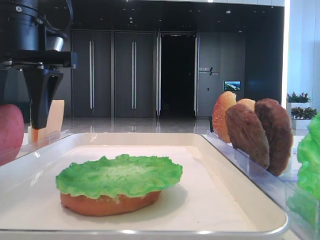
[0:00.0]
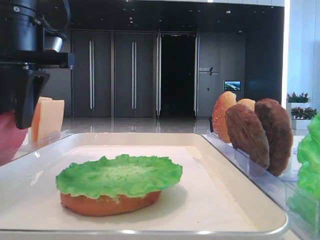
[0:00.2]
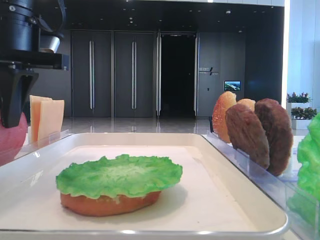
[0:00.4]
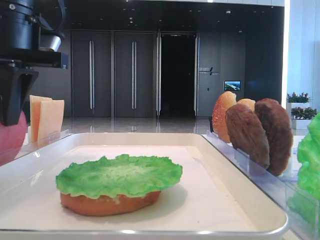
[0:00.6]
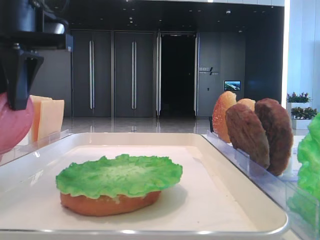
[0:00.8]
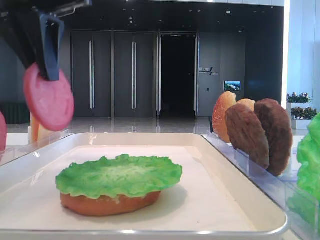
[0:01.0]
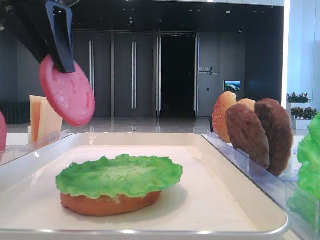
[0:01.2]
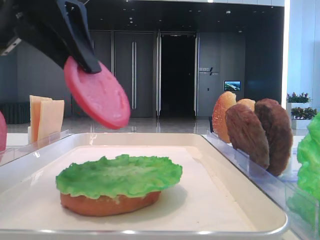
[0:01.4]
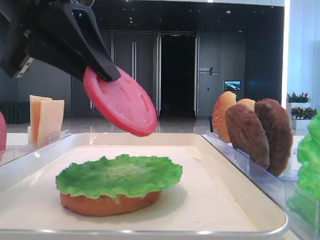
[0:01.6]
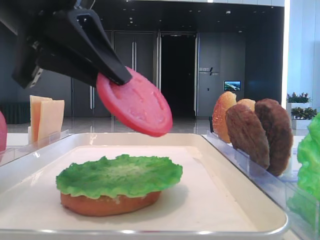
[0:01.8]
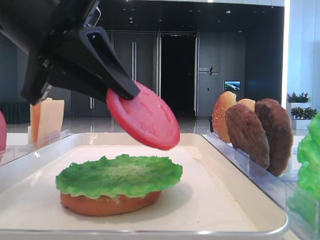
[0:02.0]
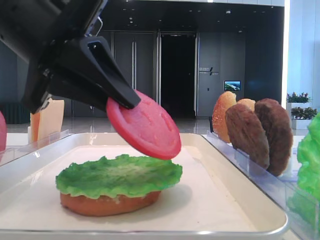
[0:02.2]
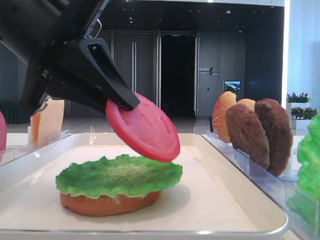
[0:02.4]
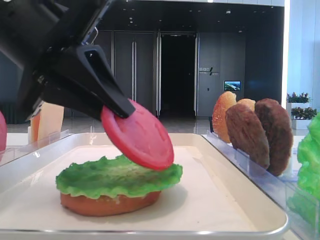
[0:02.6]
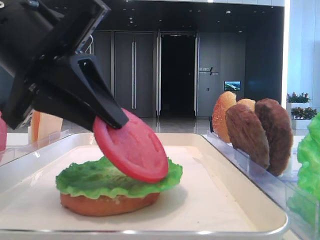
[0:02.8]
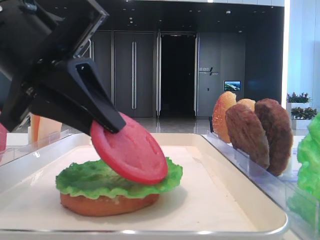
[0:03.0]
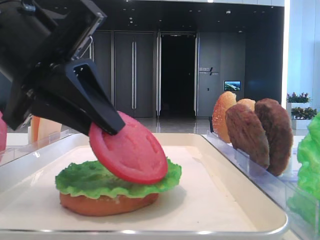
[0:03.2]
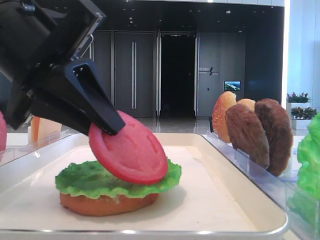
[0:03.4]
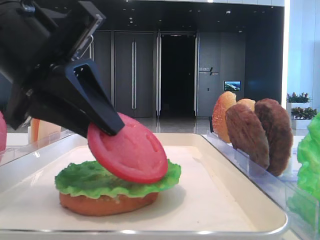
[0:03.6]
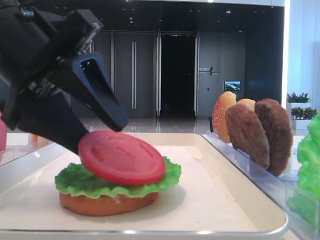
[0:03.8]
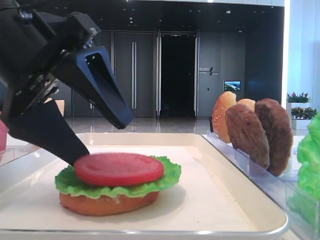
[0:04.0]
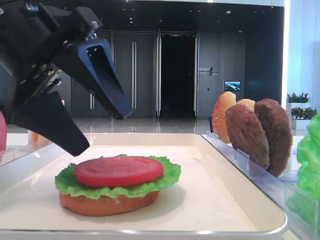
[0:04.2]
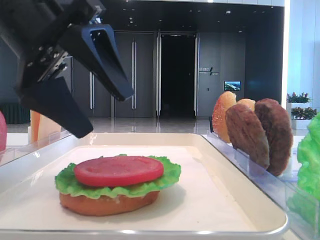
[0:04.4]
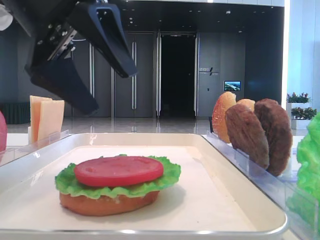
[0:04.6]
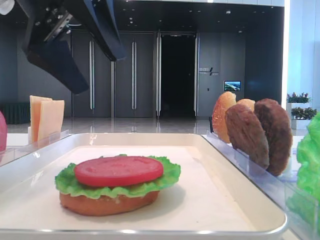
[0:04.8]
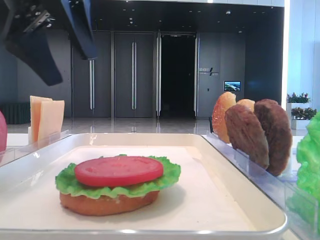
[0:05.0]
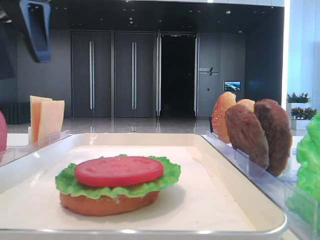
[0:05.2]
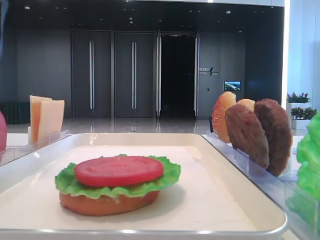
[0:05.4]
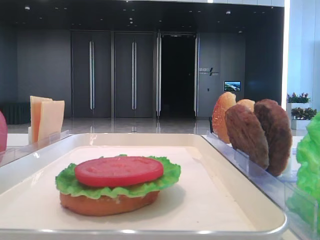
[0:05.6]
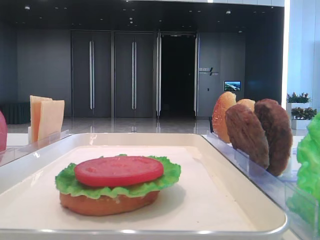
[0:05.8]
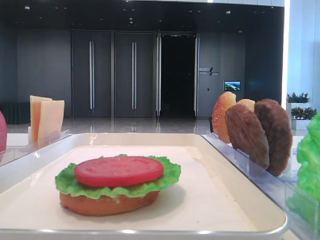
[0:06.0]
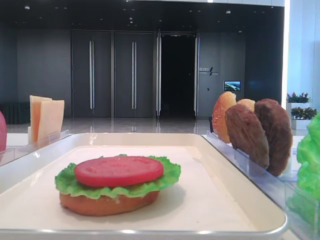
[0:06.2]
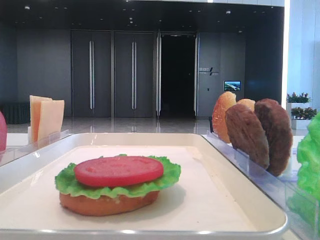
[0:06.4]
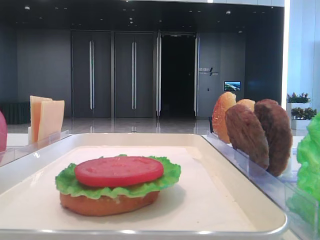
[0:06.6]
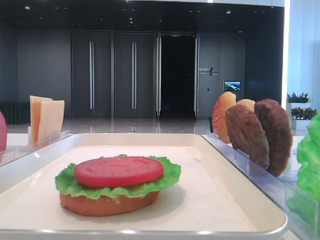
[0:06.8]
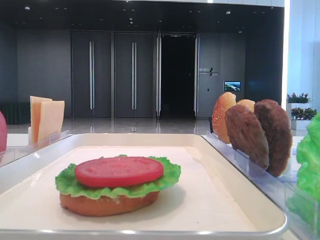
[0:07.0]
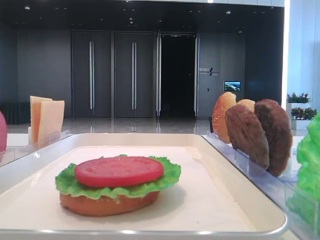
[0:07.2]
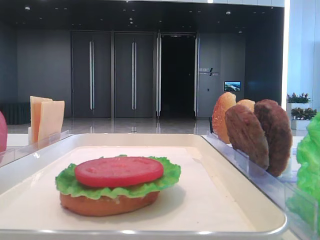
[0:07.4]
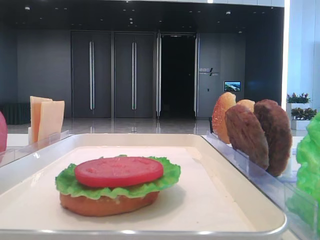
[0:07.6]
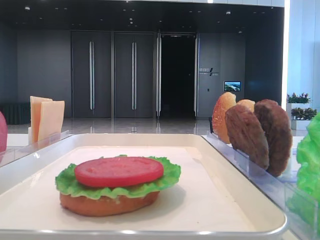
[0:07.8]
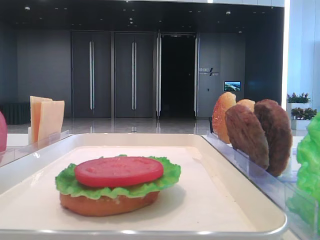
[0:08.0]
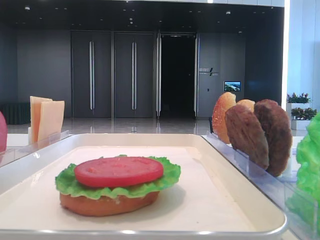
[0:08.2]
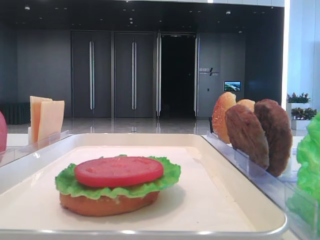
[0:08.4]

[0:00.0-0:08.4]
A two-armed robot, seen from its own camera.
Step, 0:00.6 to 0:04.0: Place the tomato slice on the lettuce leaf with the left hand.
0:00.0 to 0:01.4: The left gripper shifts by roughly 5 cm, and closes.
0:01.4 to 0:02.8: The left gripper heads downward, covering about 10 cm.
0:02.8 to 0:04.2: The left gripper opens its fingers.
0:04.2 to 0:05.6: The left gripper shifts about 20 cm to the left and upward.

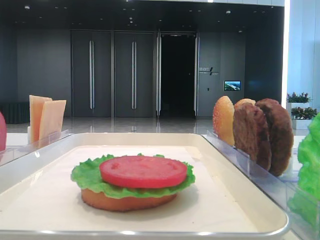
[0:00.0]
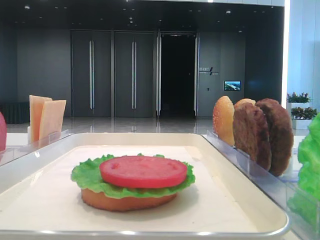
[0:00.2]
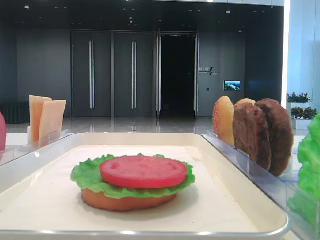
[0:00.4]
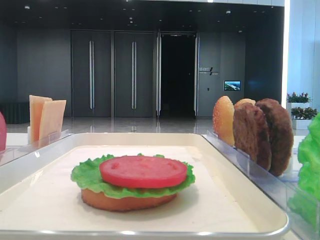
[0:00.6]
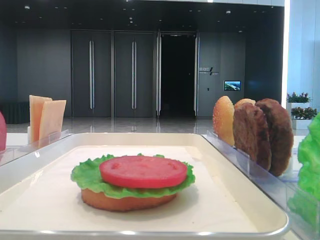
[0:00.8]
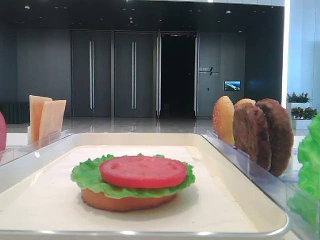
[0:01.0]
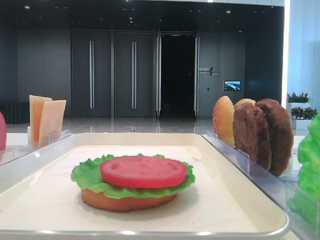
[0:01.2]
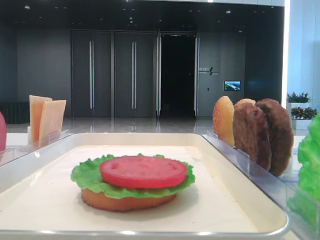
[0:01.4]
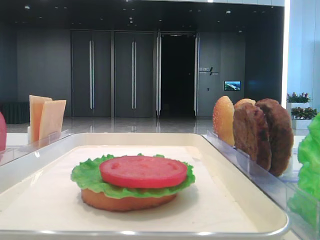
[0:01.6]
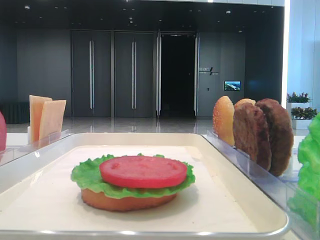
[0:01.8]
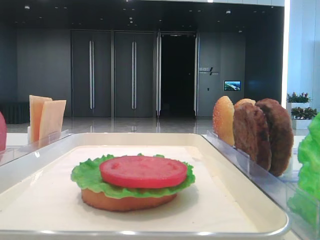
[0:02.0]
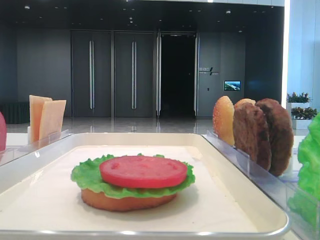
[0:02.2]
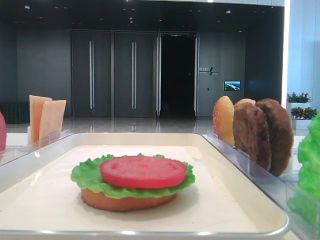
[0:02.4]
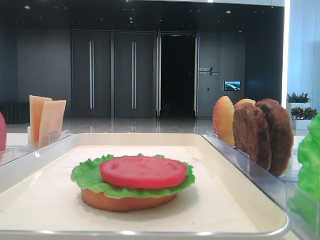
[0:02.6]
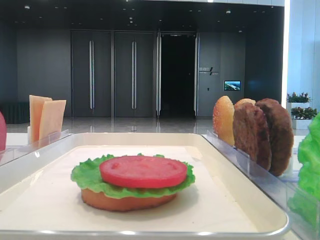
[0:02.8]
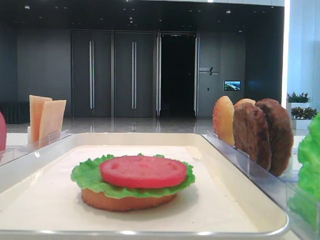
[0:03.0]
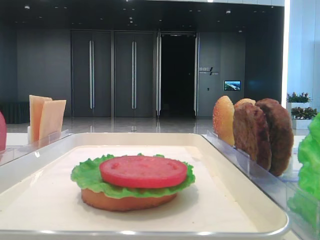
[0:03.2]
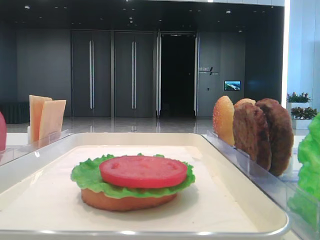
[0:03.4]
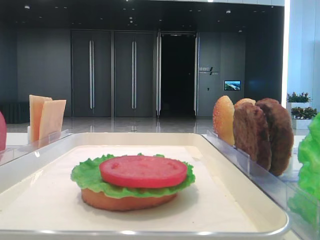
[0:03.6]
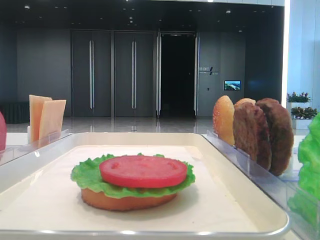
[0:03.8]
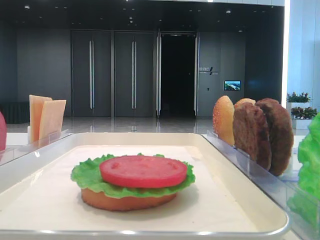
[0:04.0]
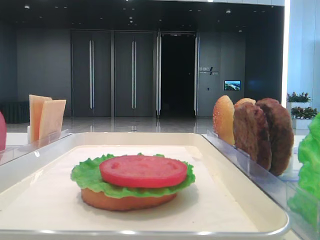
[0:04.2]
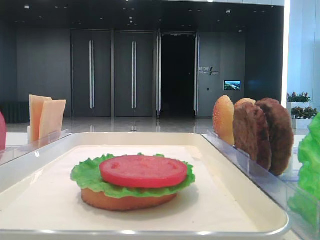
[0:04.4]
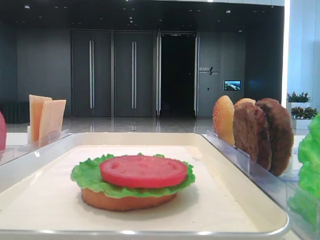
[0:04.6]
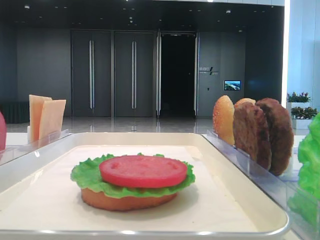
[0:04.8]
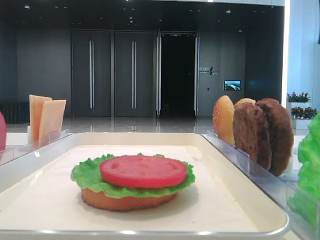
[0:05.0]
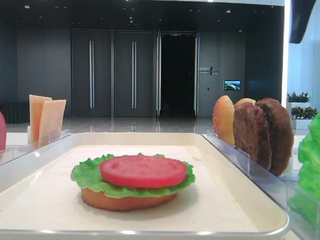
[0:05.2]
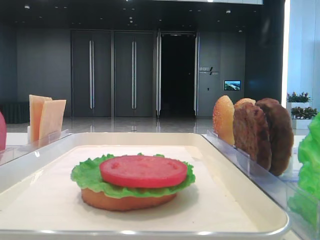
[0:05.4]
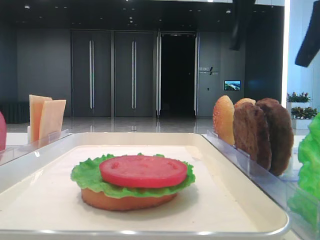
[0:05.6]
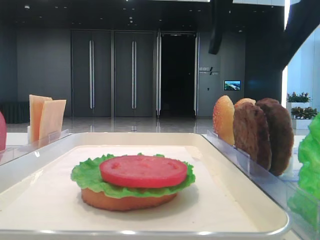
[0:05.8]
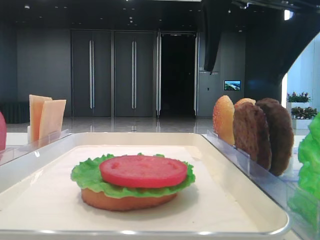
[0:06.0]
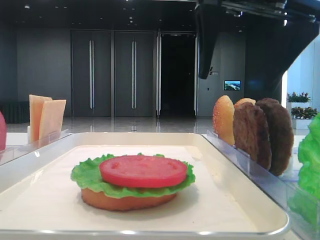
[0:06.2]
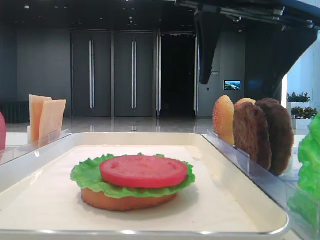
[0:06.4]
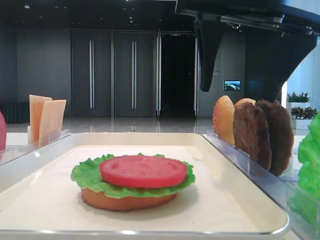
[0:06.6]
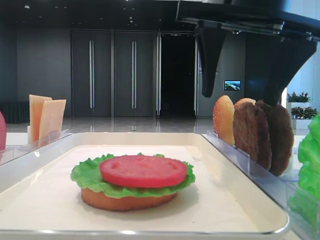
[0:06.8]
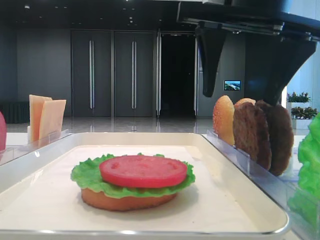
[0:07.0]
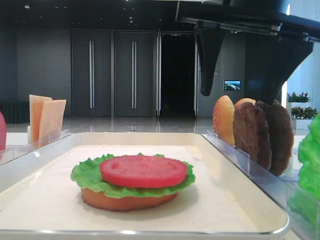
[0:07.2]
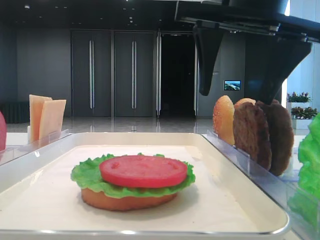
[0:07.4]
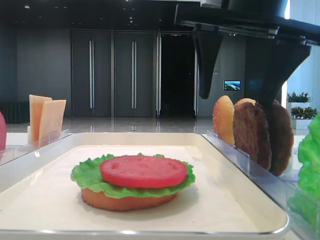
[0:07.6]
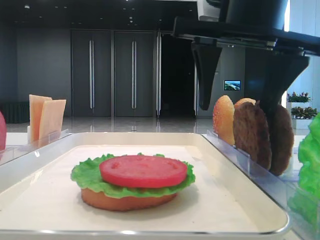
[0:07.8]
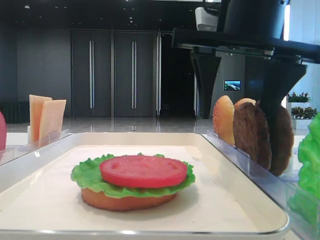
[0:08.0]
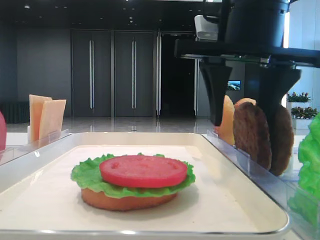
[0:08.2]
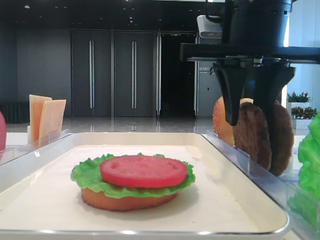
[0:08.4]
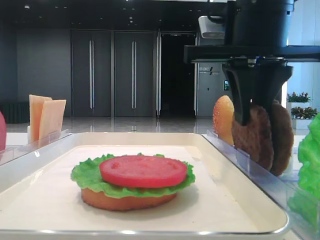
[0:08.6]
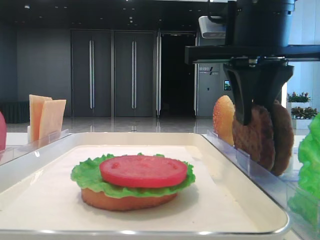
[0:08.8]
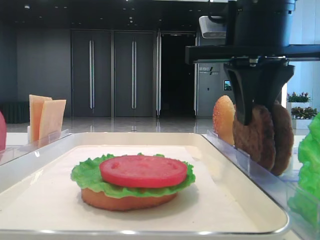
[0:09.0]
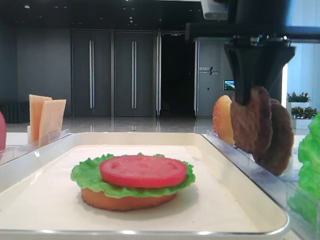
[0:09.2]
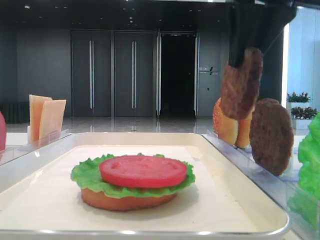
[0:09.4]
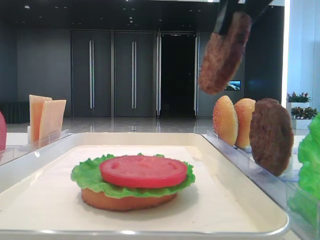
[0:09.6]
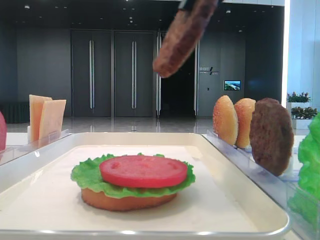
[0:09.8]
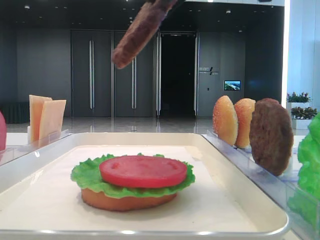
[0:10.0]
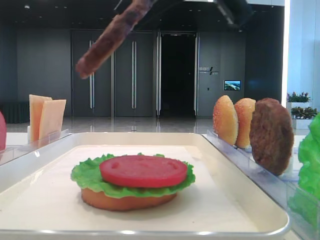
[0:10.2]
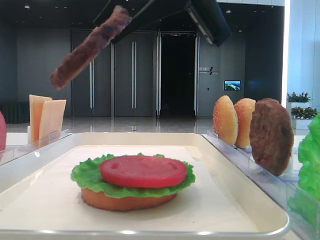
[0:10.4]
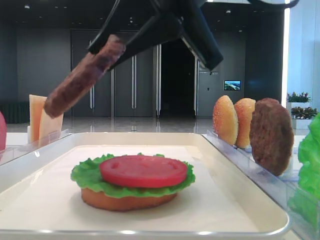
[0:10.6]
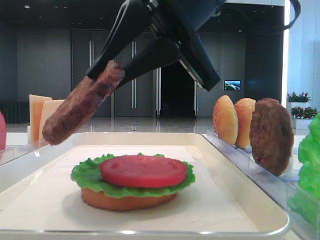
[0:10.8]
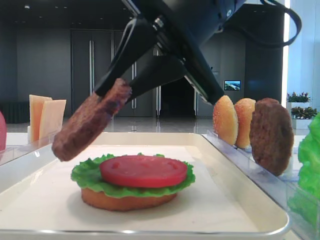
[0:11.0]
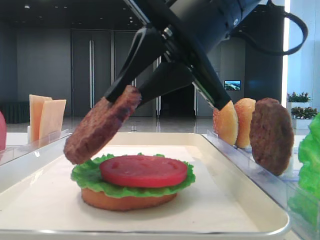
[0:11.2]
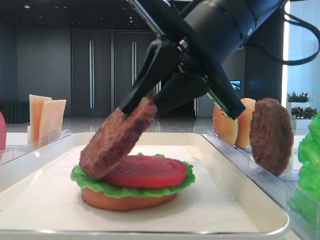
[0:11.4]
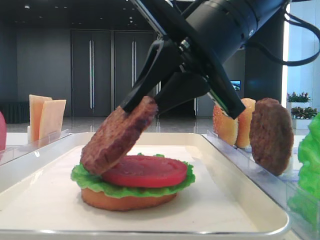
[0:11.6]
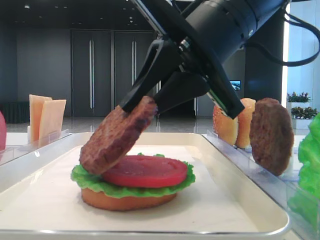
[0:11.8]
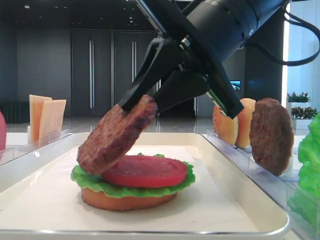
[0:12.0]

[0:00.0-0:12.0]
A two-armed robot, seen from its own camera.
Step, 0:00.0 to 0:08.8: Grab the patty with the right hand.
0:04.4 to 0:06.0: The right gripper goes some 15 cm to the left.
0:06.0 to 0:07.6: There are only small adjustments of the grippers.
0:07.6 to 0:09.0: The right gripper closes up.
0:09.0 to 0:10.4: The right gripper is displaced to the left and upward by approximately 10 cm.
0:10.4 to 0:12.0: The right gripper shifts roughly 5 cm downward.

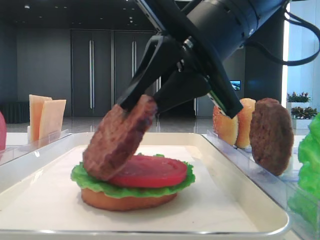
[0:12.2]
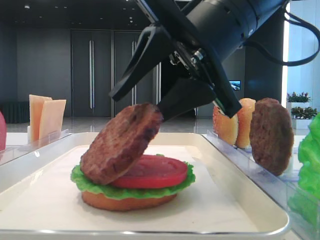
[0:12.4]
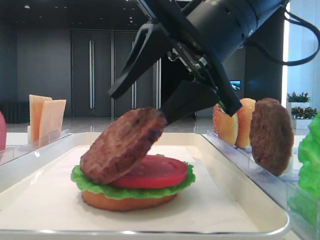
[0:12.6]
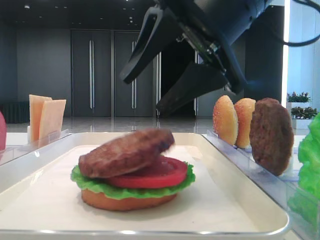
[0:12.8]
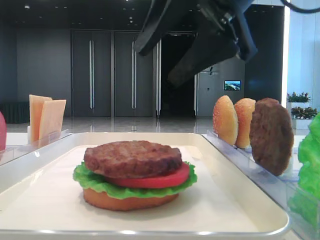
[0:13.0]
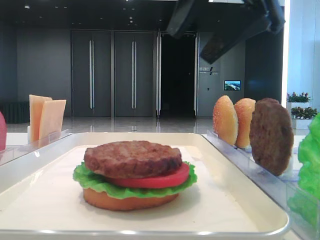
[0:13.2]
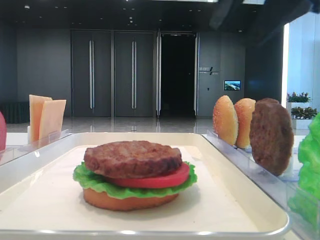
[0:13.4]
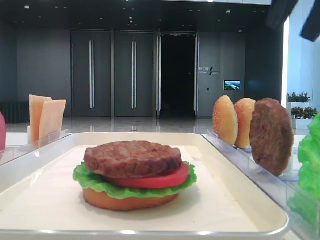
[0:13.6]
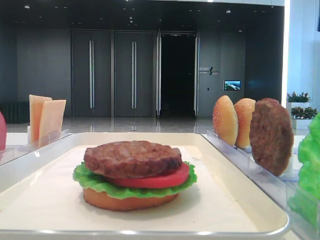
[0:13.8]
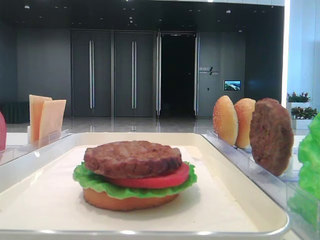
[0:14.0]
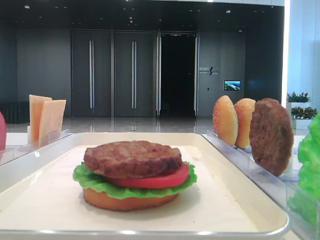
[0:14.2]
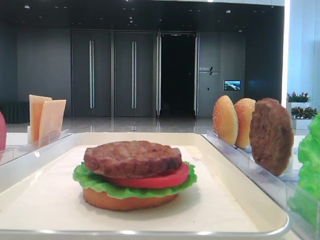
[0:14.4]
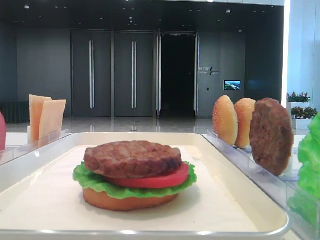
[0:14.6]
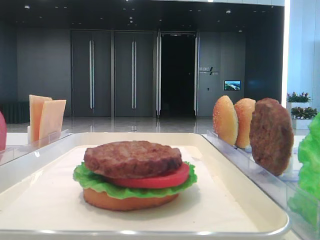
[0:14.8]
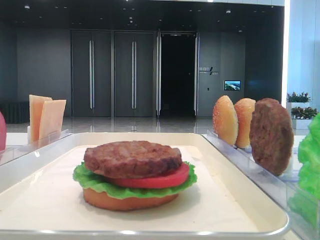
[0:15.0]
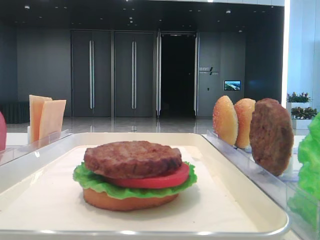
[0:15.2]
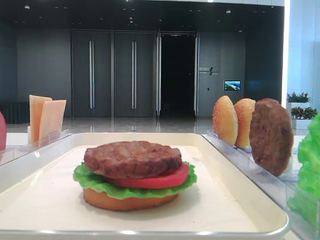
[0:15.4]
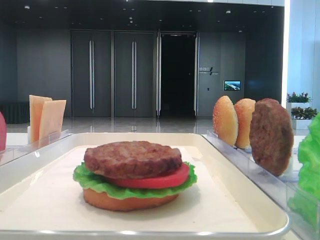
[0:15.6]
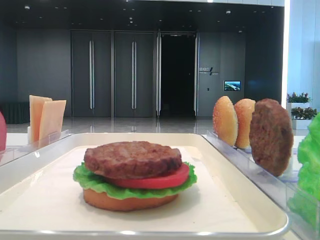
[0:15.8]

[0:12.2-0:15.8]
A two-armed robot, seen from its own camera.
0:12.2 to 0:14.0: The right gripper shifts approximately 25 cm to the right and upward, and opens.
